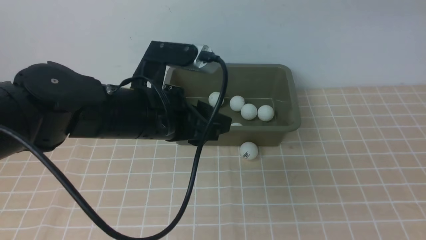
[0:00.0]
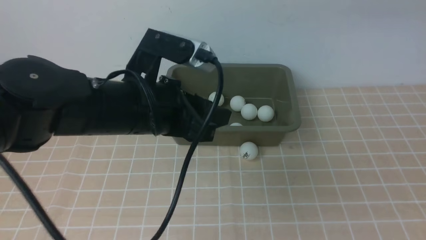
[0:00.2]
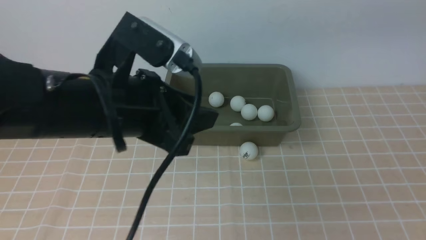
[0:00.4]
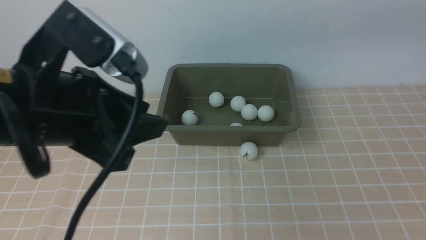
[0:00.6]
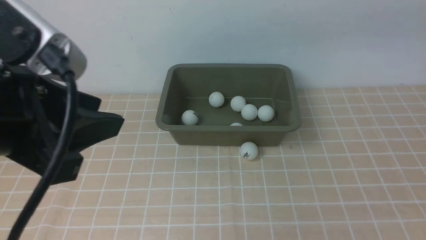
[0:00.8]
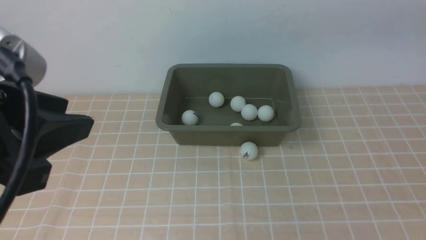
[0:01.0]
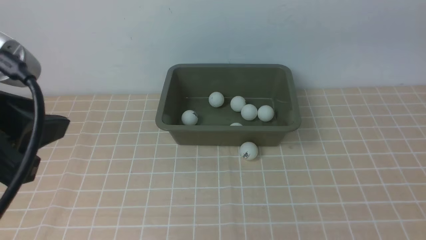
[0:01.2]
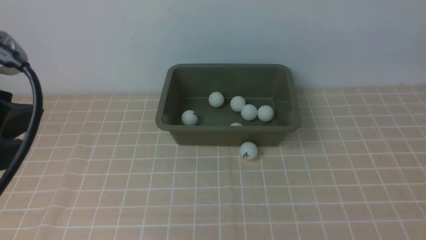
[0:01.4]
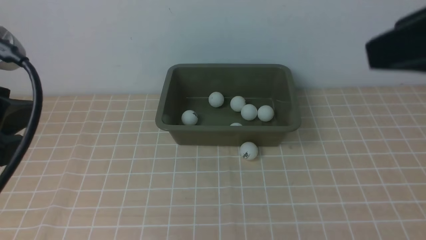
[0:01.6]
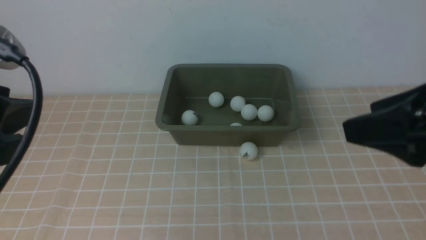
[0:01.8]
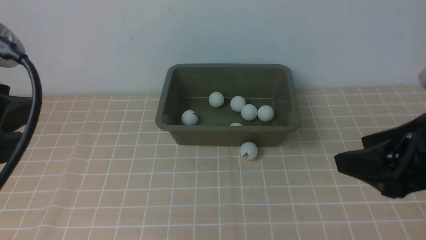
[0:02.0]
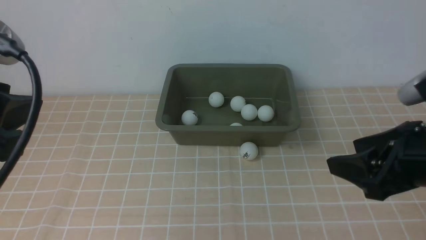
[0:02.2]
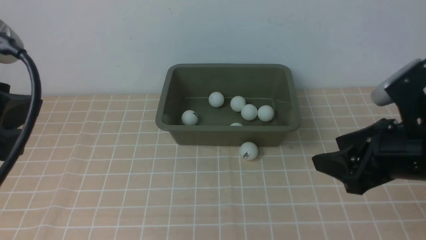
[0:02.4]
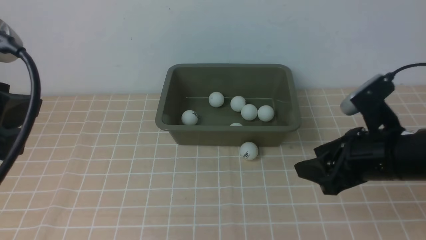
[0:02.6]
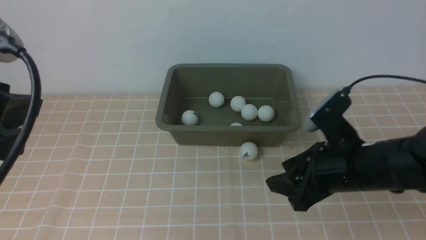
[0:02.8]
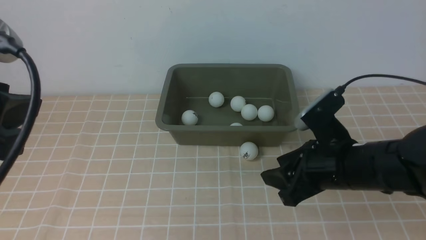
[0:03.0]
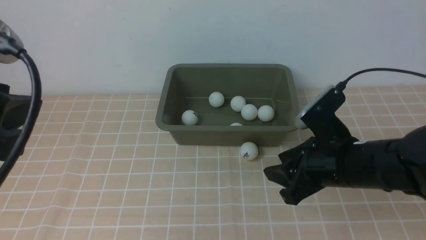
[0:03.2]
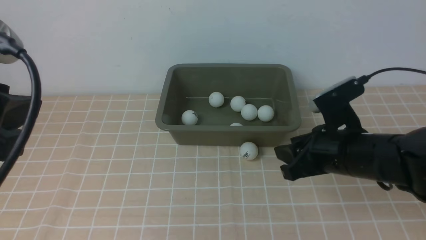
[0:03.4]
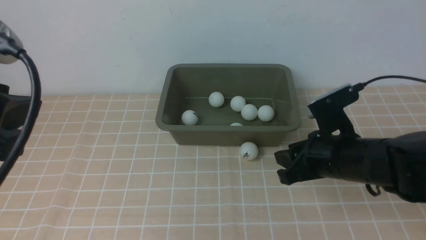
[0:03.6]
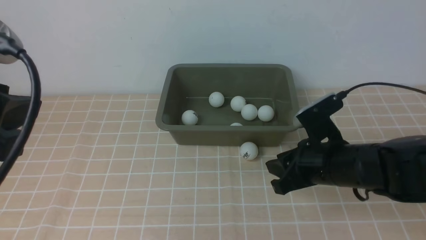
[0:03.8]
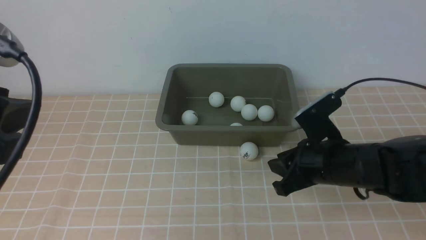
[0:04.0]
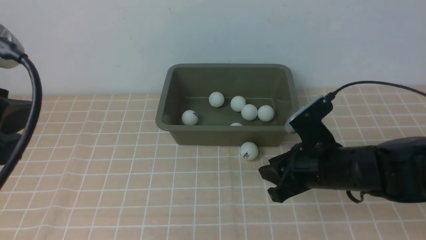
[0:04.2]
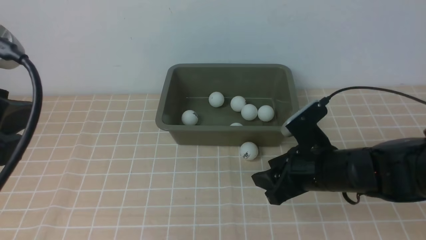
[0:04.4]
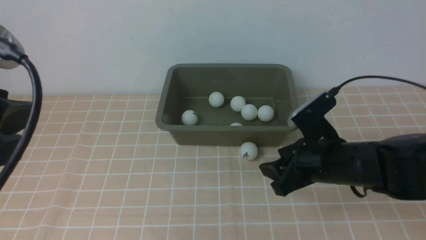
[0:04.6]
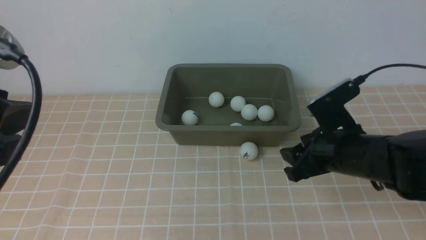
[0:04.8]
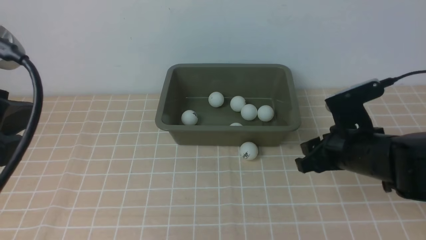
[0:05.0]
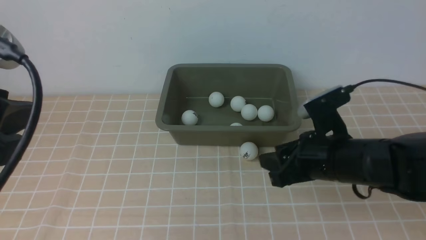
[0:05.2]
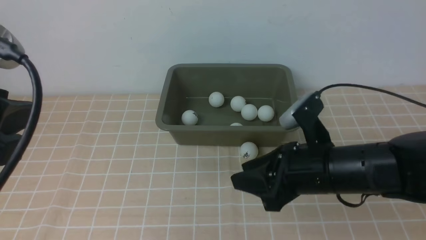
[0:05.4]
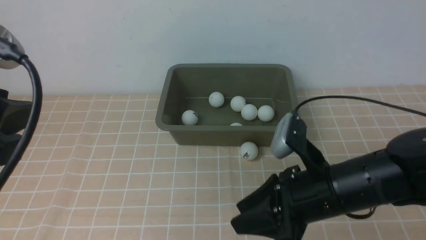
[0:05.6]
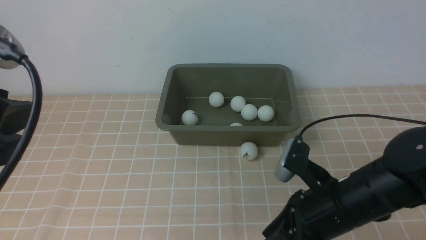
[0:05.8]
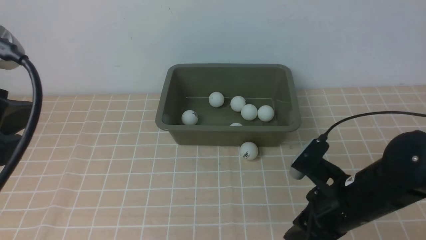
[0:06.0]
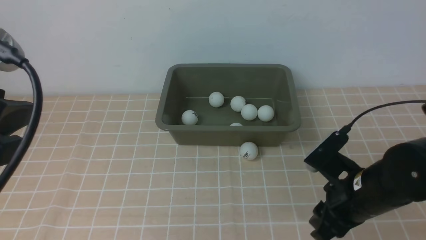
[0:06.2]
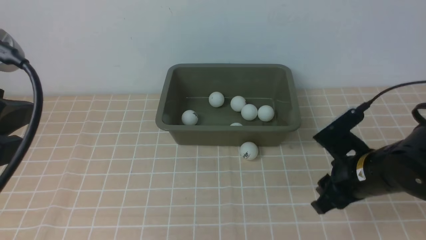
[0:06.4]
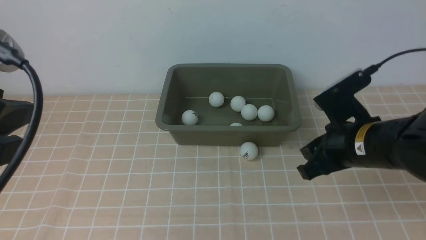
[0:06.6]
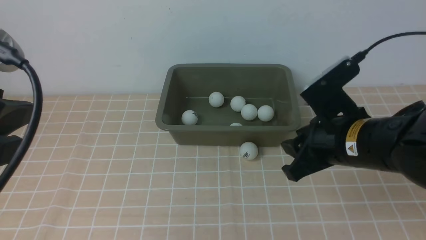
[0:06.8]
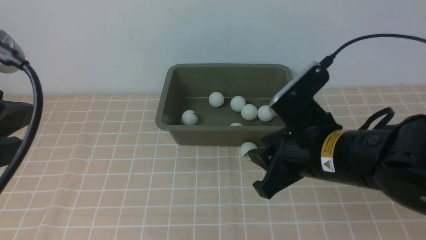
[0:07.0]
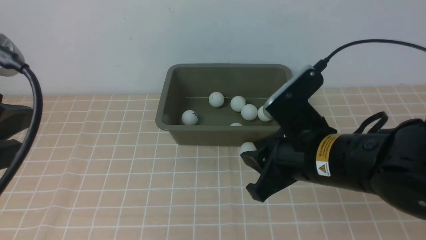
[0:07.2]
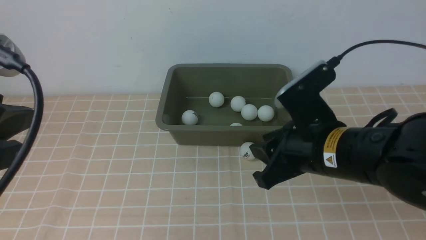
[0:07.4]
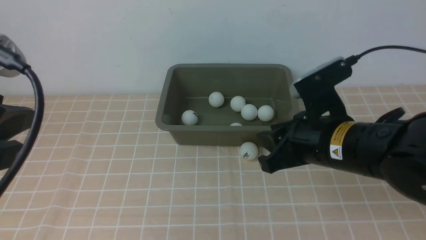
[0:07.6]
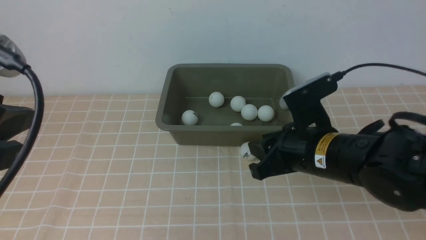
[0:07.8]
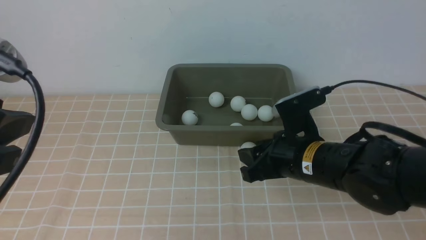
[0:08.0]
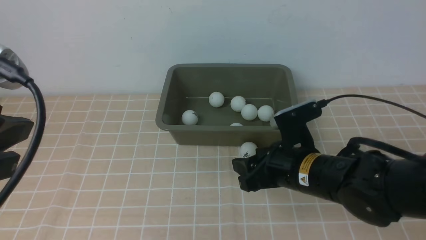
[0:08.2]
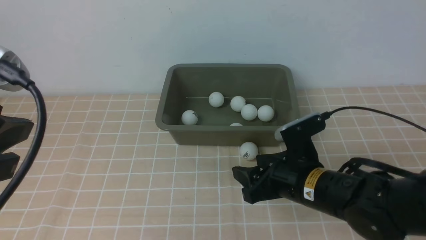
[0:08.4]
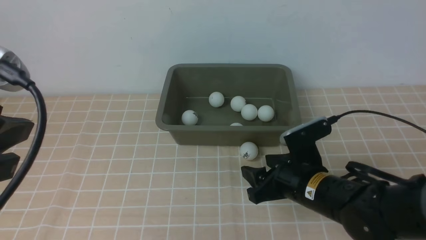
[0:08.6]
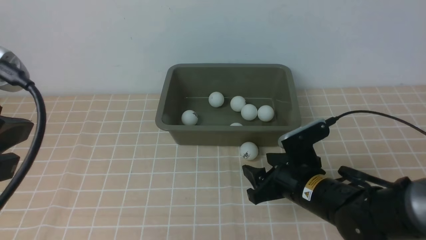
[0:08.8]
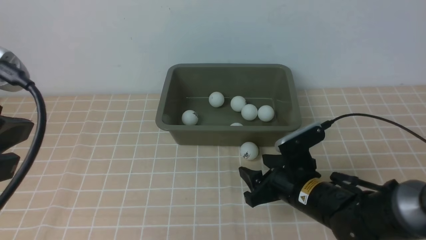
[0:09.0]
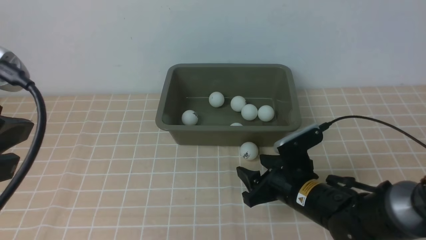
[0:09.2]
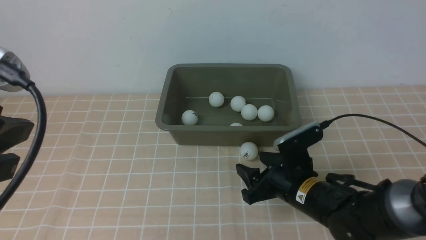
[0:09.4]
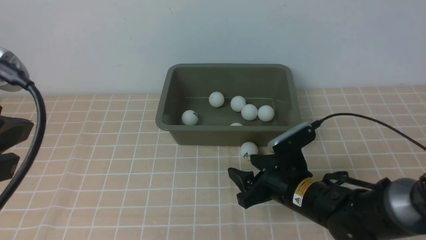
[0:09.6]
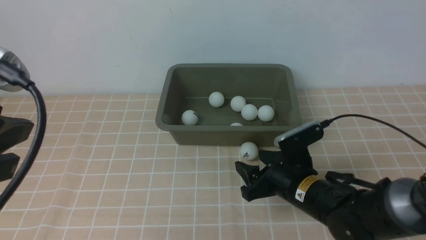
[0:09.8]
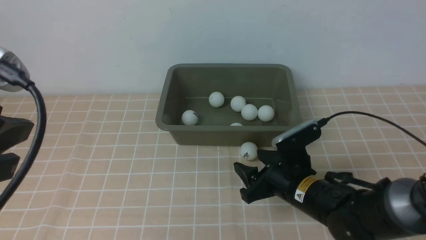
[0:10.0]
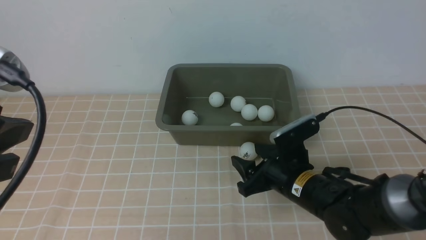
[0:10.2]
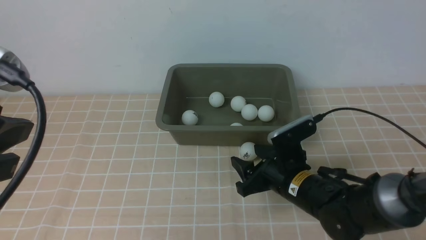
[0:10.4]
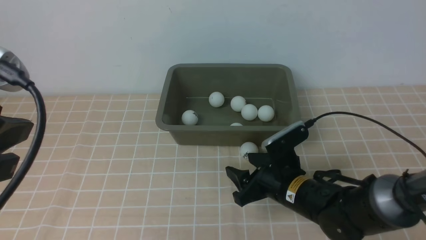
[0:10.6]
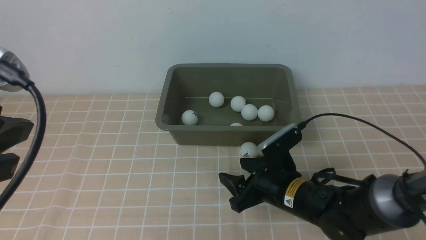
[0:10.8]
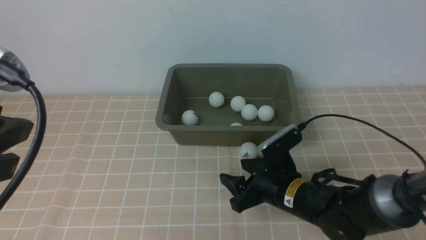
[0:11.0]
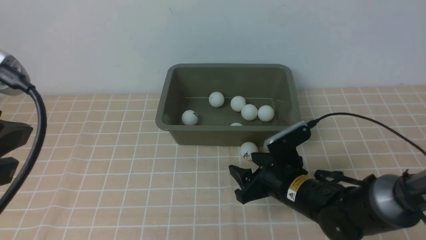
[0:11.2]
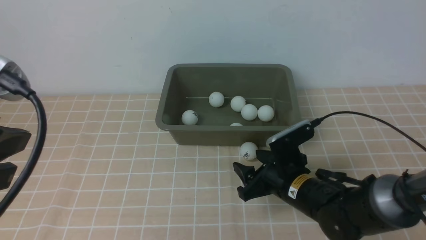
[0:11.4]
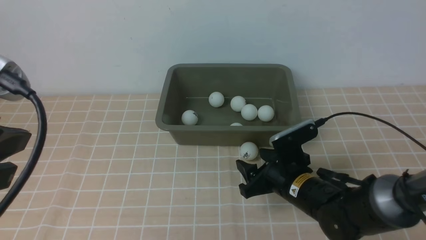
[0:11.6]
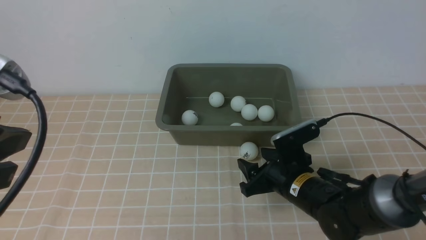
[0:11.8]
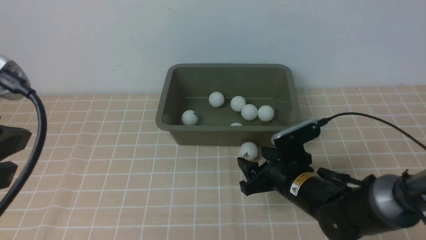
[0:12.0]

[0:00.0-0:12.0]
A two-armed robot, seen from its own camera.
0:00.0 to 0:01.6: The left gripper goes about 20 cm to the left, backward and upward. Meanwhile the right gripper heads backward and downward, covering roughly 15 cm.
0:01.6 to 0:03.0: The right gripper heads downward, covering some 25 cm, and closes.
0:03.0 to 0:04.4: The right gripper closes, then opens again.
0:04.4 to 0:06.0: The right gripper travels backward by about 5 cm.
0:06.0 to 0:07.6: The right gripper travels upward by some 5 cm.
0:07.6 to 0:09.0: The right gripper travels downward by some 15 cm, and opens its fingers.
0:09.0 to 0:12.0: The grippers make only small movements.

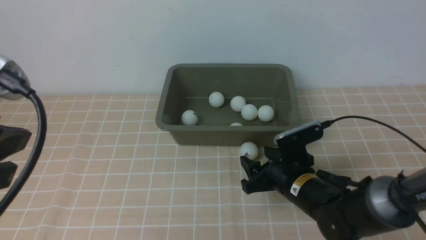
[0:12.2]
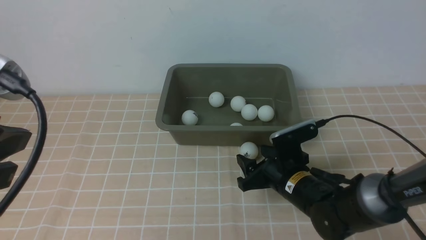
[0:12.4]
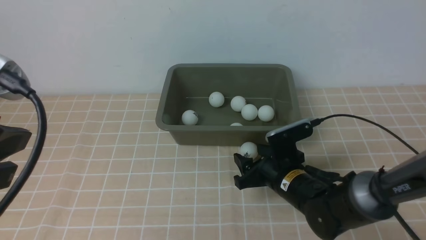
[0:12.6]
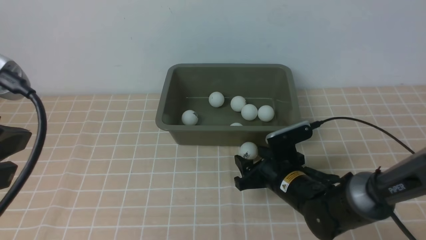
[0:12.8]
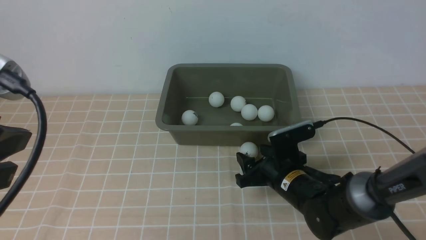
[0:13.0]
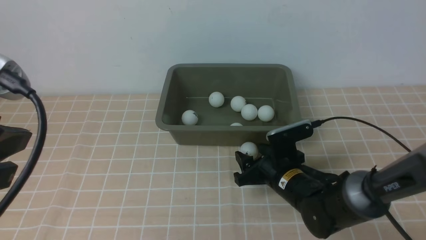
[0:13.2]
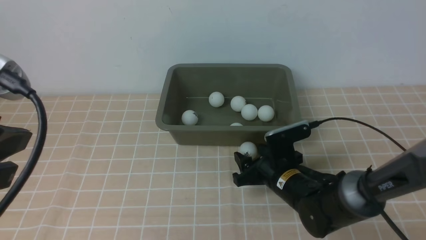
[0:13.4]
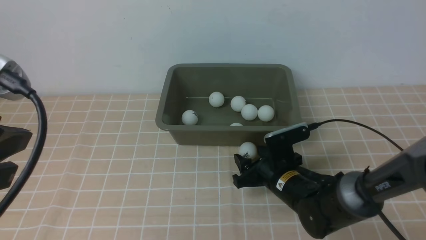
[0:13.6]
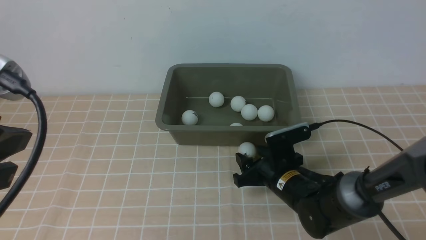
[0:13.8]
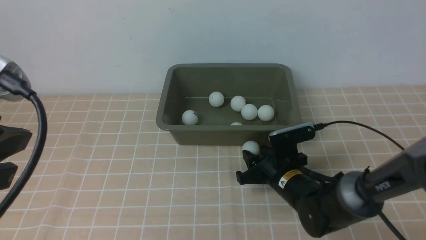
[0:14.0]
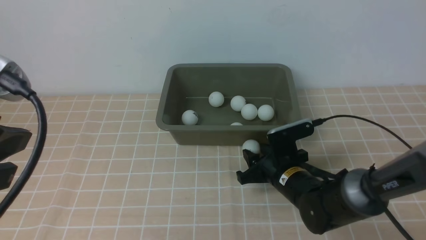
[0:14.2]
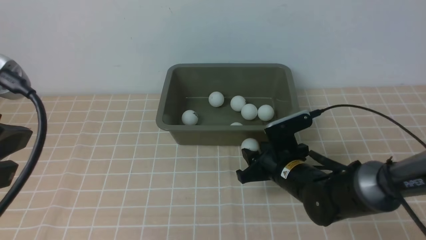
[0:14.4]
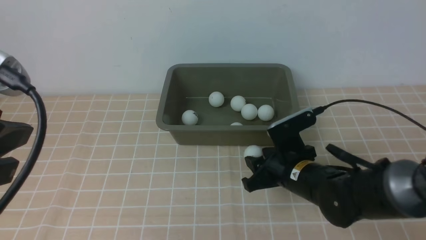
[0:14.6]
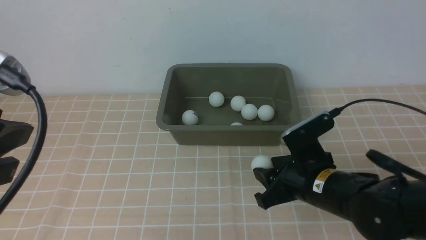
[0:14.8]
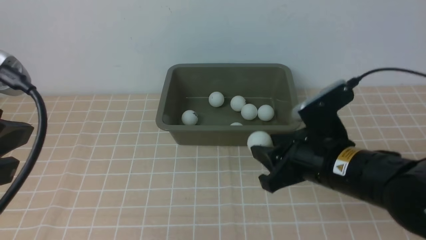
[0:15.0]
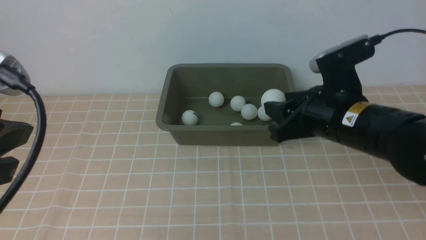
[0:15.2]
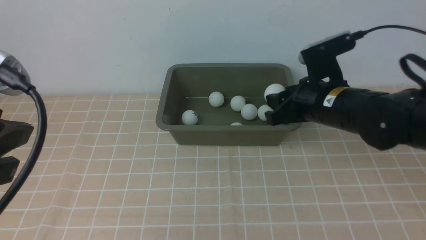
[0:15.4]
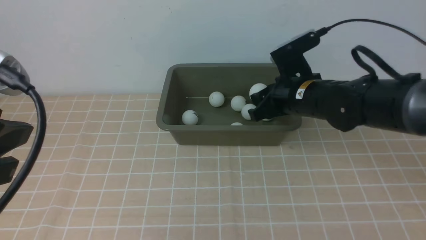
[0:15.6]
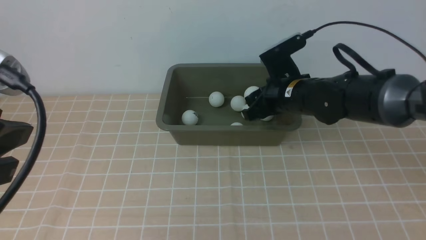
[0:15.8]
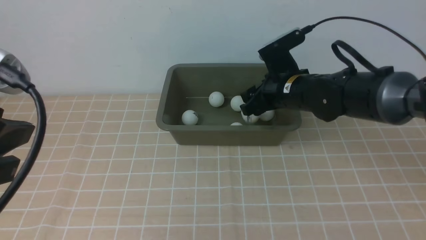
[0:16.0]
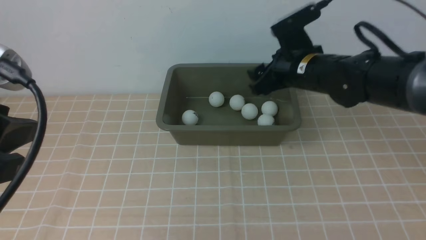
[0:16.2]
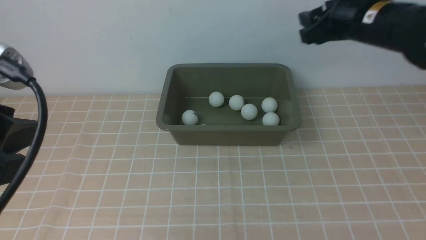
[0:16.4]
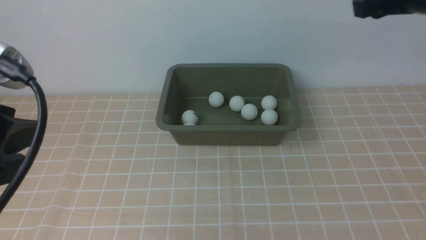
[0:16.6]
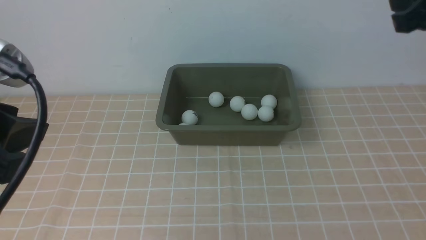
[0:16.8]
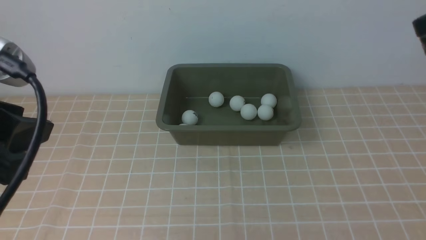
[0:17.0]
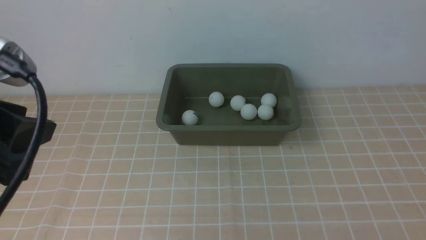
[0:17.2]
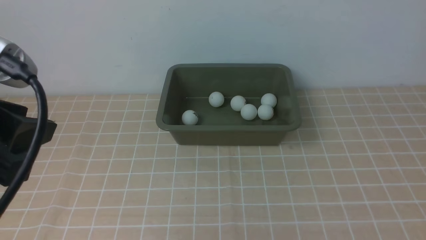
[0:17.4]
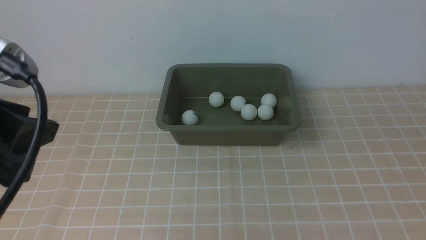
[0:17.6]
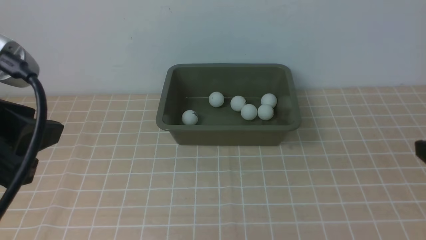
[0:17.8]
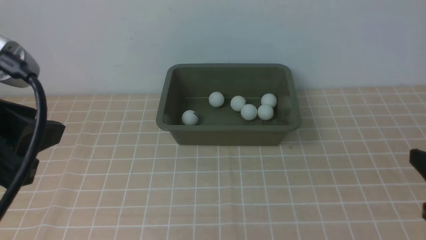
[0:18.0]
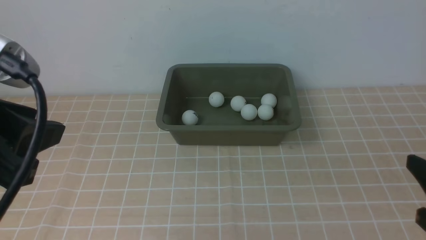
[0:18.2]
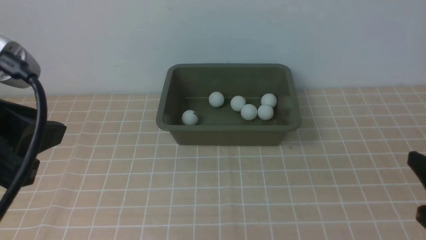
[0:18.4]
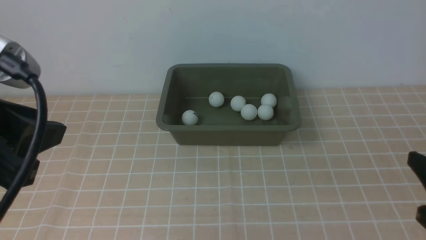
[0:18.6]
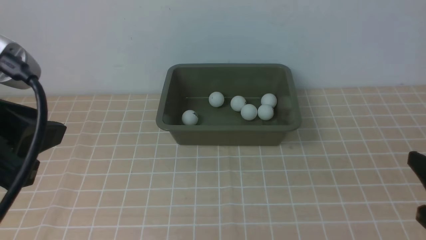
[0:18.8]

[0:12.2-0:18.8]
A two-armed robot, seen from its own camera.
Step, 0:12.2 to 0:14.6: use the right arm to clamp the table tennis ball closest to it.
Step, 0:14.8 to 0:16.0: use the right arm to put the table tennis ball into the box.
0:12.2 to 0:13.8: The grippers make only small movements.
0:13.8 to 0:15.4: The right gripper heads upward, covering roughly 15 cm.
0:15.4 to 0:17.2: The right gripper is displaced upward, backward and to the right by some 25 cm, and opens and closes again.
0:17.2 to 0:18.8: The right gripper is displaced downward and backward by roughly 20 cm.
